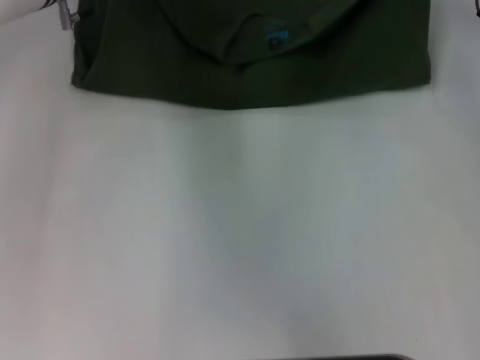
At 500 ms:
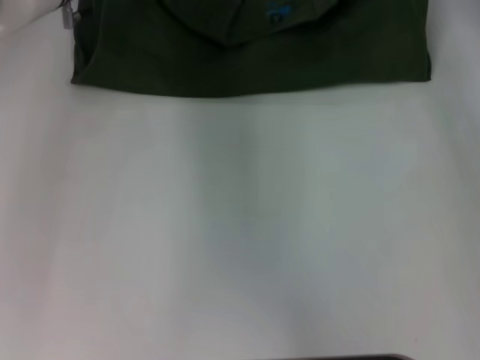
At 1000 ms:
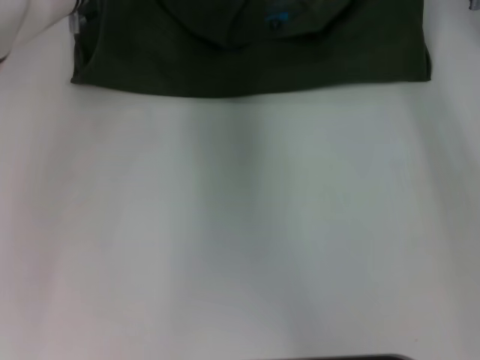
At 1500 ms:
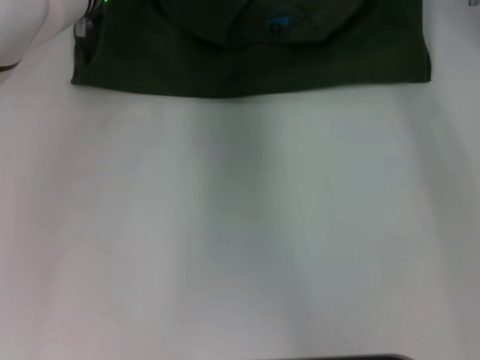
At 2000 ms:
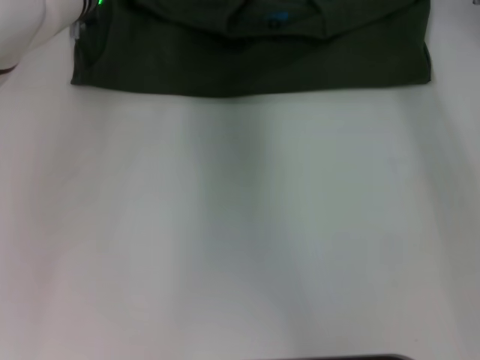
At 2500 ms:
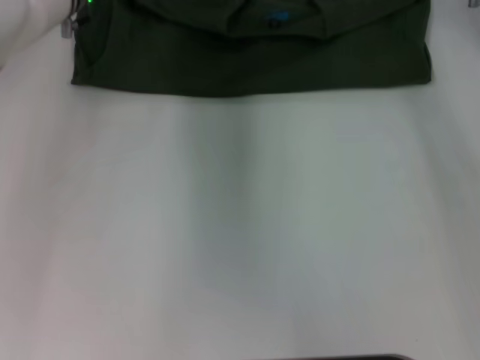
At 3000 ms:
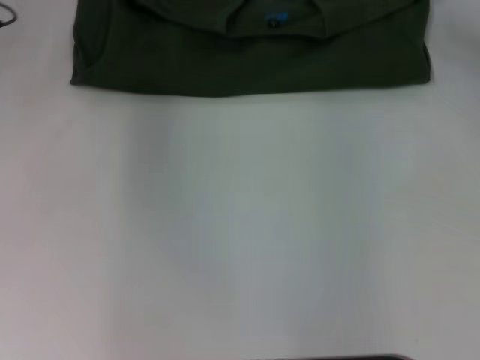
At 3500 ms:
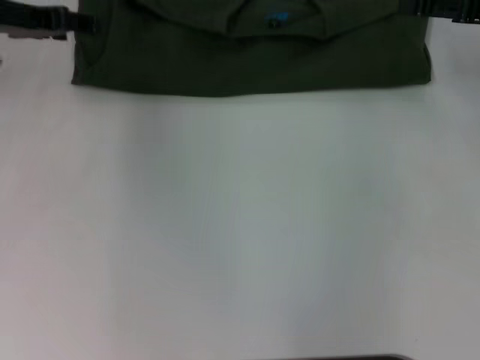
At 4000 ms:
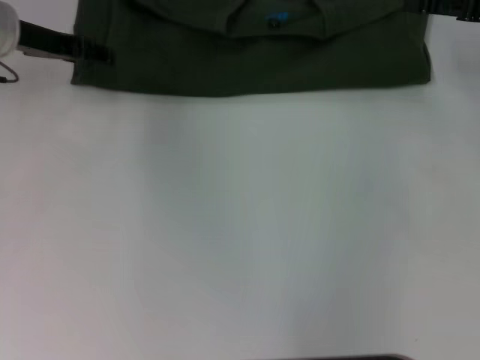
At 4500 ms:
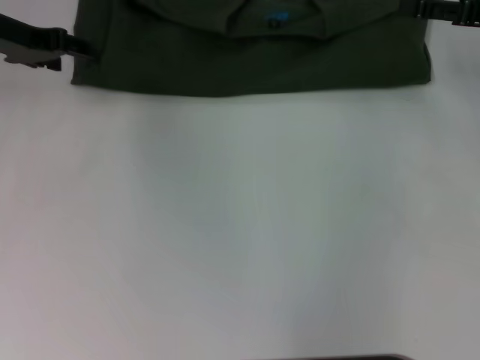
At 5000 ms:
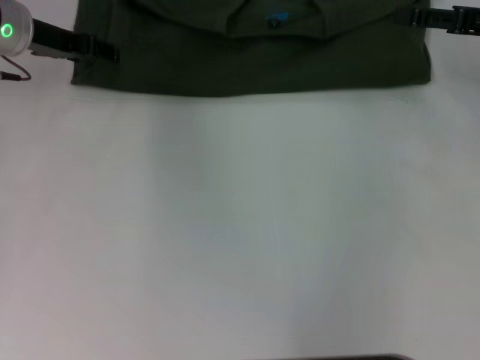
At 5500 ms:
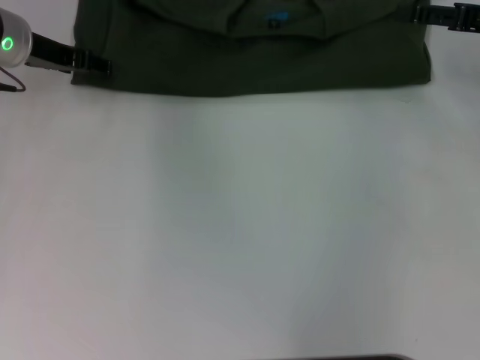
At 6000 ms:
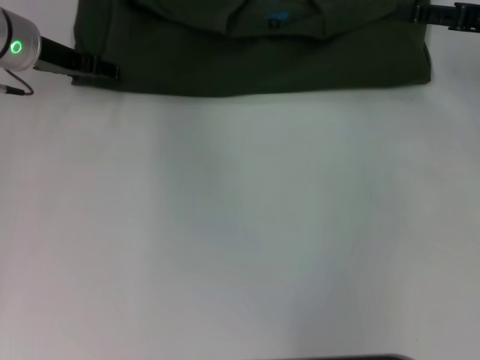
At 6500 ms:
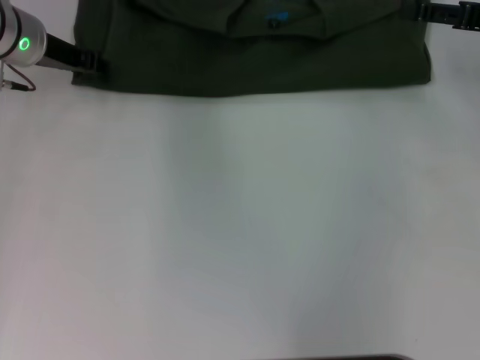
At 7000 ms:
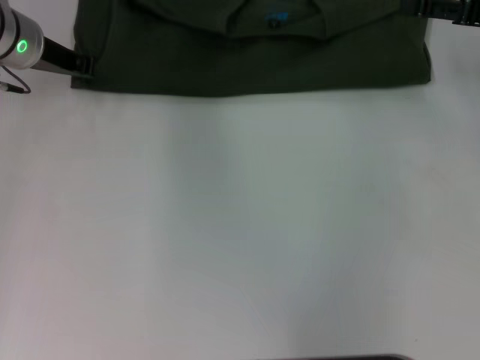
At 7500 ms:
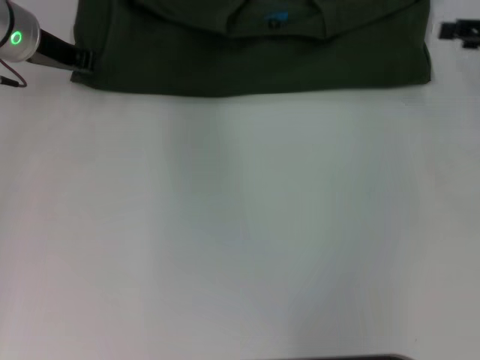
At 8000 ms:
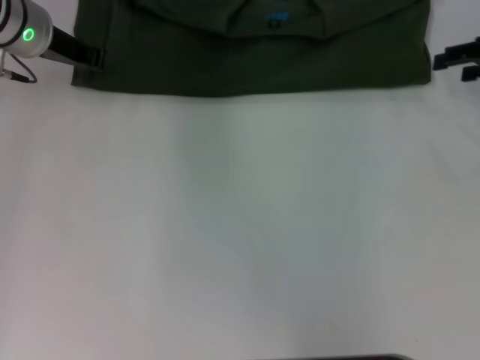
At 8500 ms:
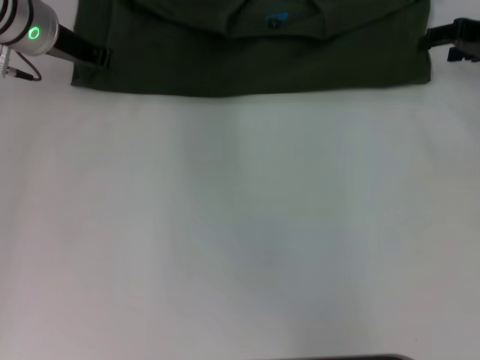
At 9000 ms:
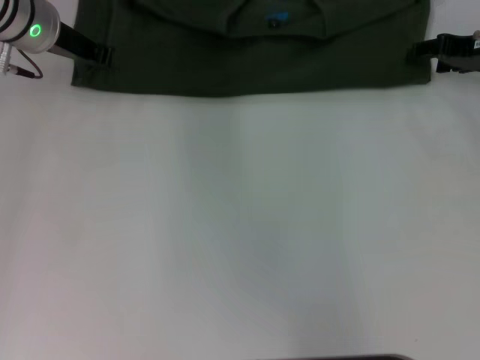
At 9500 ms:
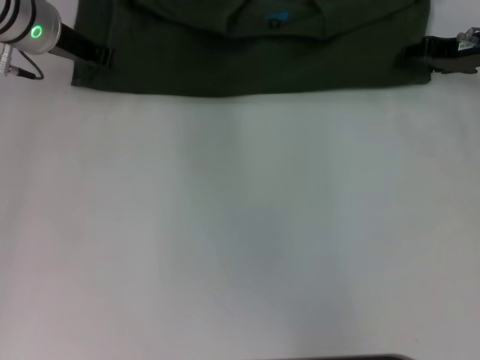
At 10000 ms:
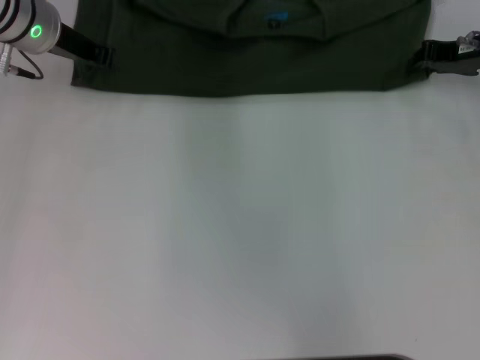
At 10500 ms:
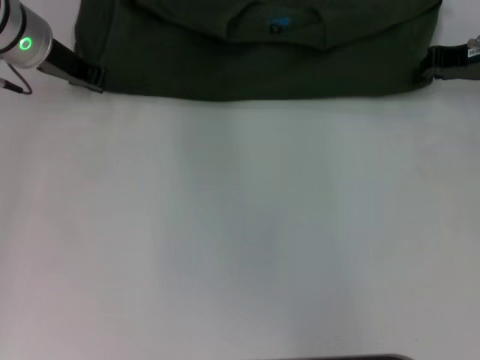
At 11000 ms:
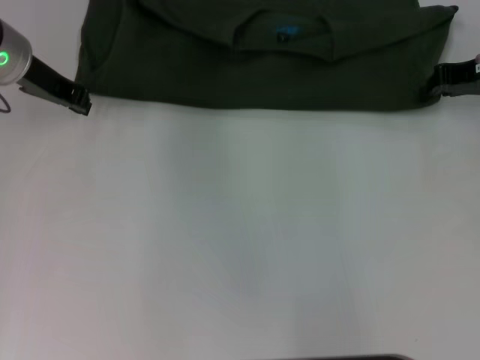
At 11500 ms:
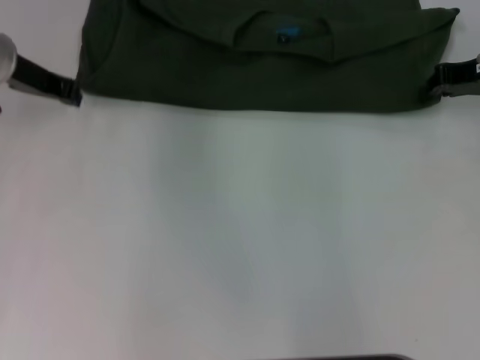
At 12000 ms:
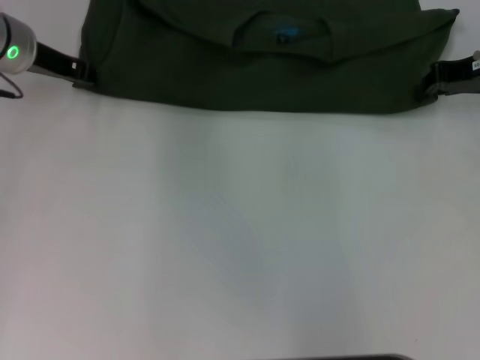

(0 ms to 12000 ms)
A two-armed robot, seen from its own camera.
0 ms - 2000 ms: The right gripper travels to the left by some 5 cm, and opens its fingers, while the left gripper opens up.
2000 ms - 4000 ms: The left gripper shifts some 10 cm to the left, while the right gripper moves backward and to the right, approximately 15 cm.
4000 ms - 6000 ms: There are only small adjustments of the grippers.
6000 ms - 8000 ms: The left gripper closes its fingers.
8000 ms - 10000 ms: The right gripper ends up roughly 5 cm from where it was, and closes its fingers.
10000 ms - 12000 ms: The grippers move only a little.

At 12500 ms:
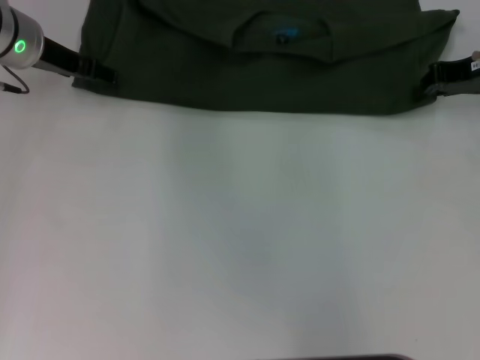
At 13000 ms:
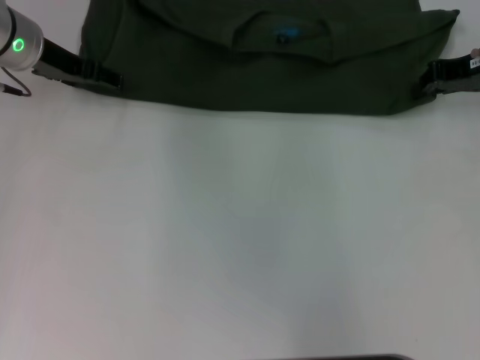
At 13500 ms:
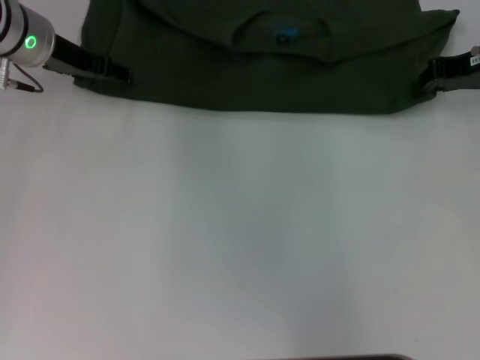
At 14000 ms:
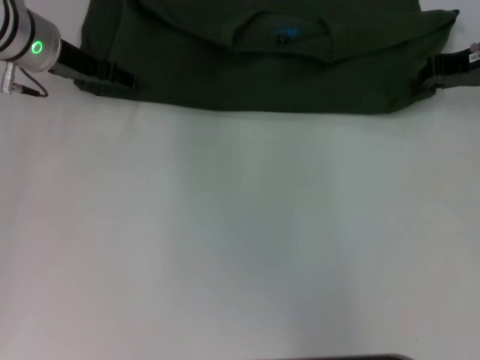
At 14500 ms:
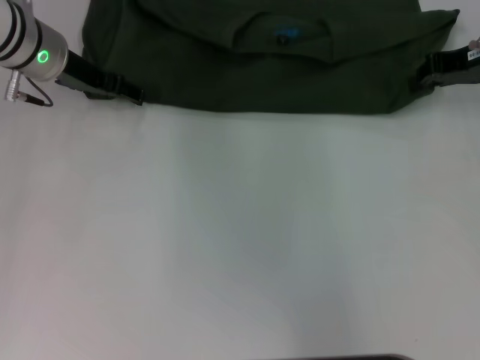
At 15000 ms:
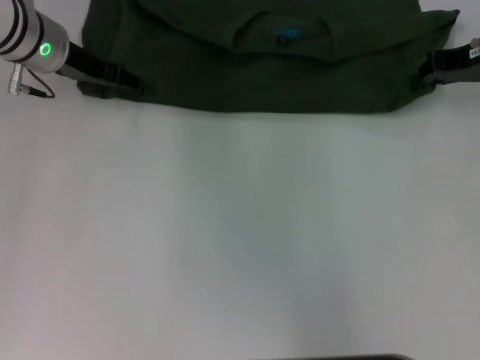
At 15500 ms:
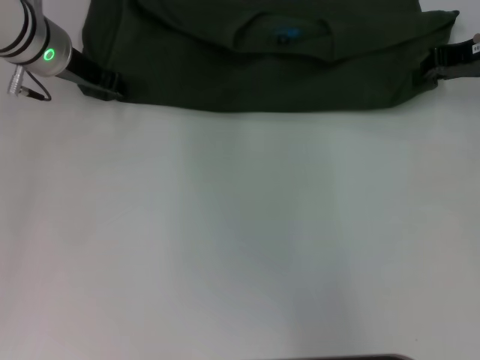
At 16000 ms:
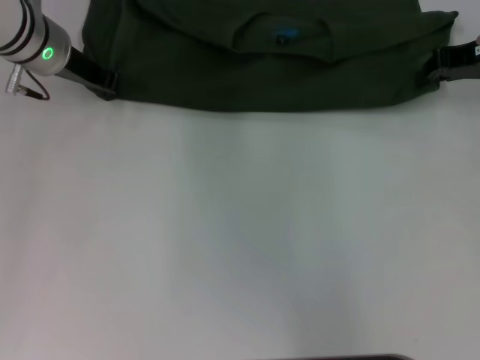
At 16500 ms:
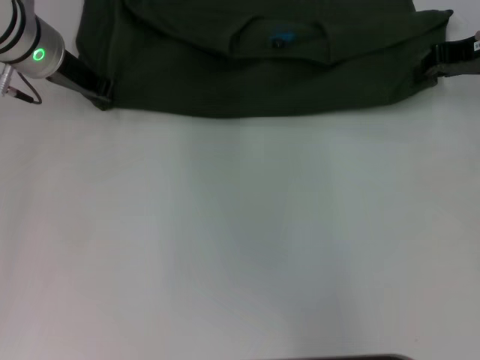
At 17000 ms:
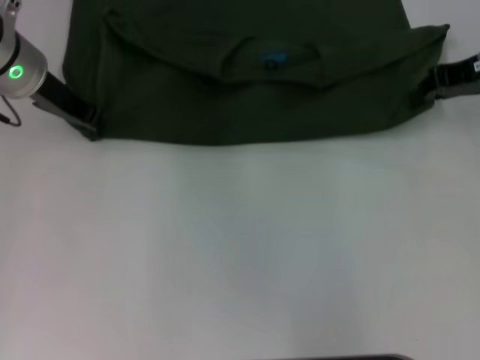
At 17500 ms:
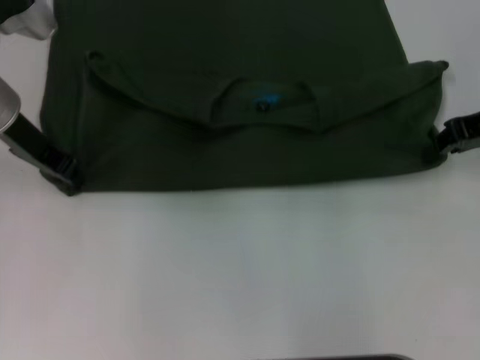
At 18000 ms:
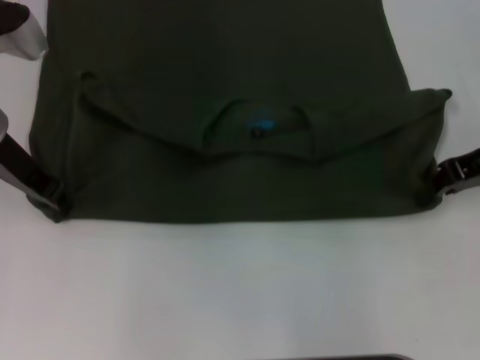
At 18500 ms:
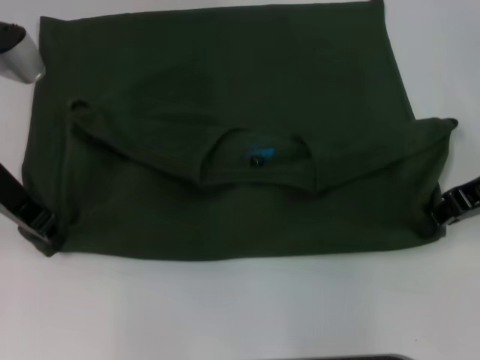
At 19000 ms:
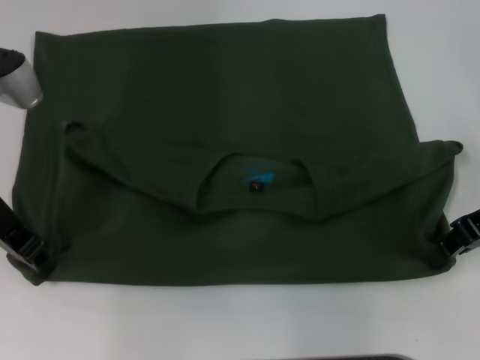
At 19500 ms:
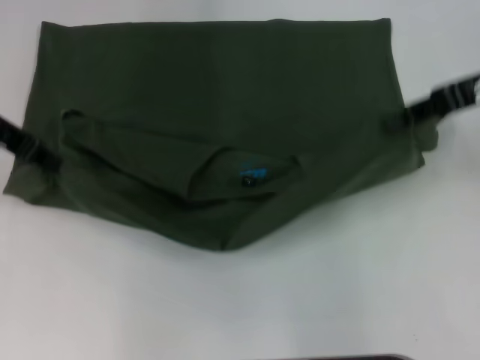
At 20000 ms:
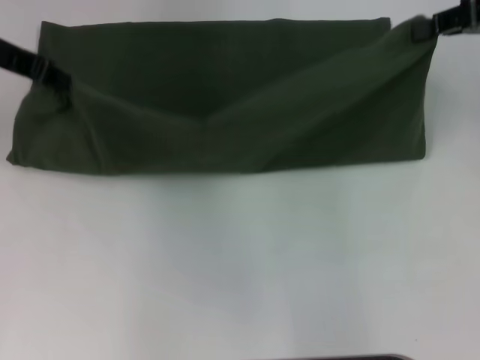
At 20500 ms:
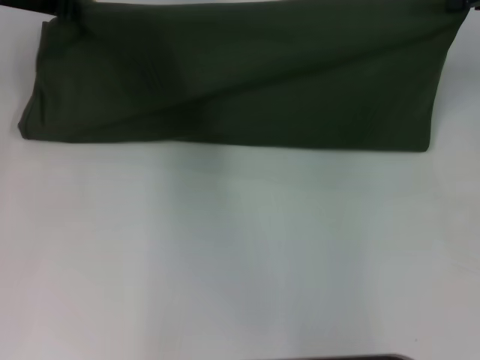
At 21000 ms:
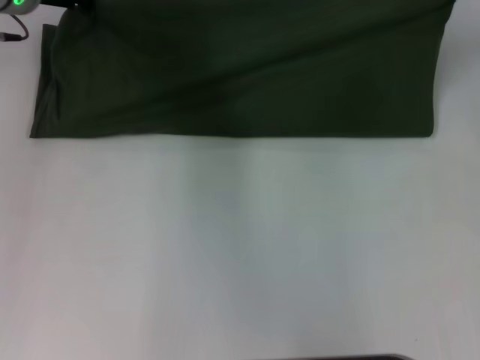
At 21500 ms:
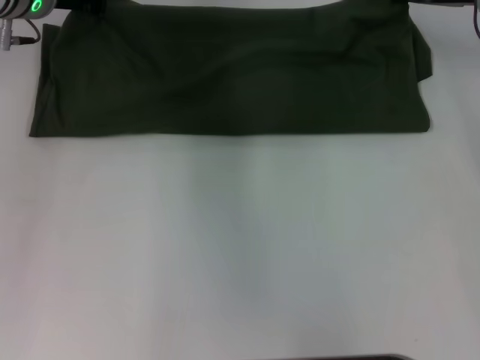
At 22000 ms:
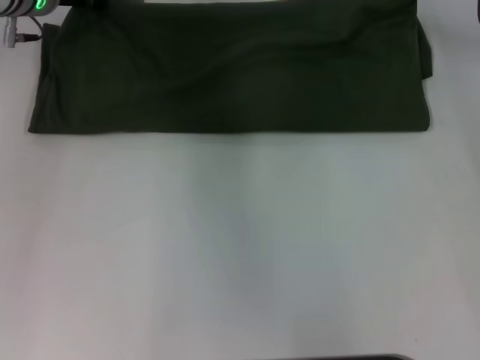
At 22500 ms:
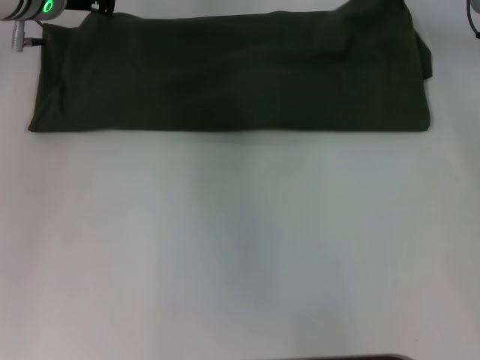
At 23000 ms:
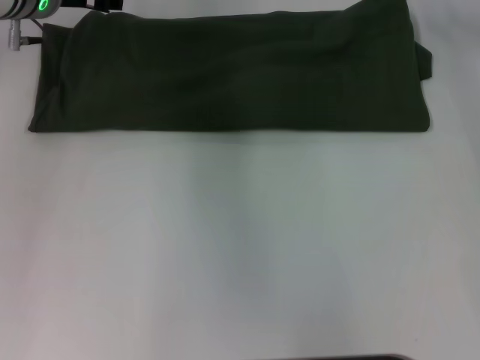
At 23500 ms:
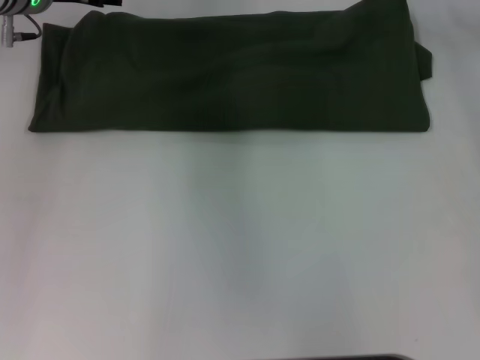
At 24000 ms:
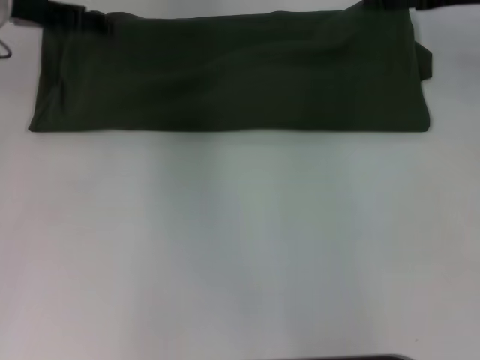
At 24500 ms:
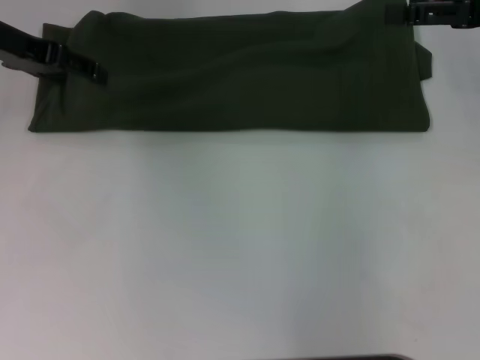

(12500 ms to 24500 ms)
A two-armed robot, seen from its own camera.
Step, 12500 ms - 18500 ms: Pull the clothes with your left hand.
Step, 12500 ms - 18500 ms: Pull the clothes with your right hand.
Step, 19000 ms - 22500 ms: Fold the clothes with your left hand.
Step, 19000 ms - 22500 ms: Fold the clothes with your right hand.
12500 ms - 14500 ms: The grippers move only a little.
14500 ms - 16500 ms: The left gripper closes up.
16500 ms - 18500 ms: The two grippers go some 10 cm backward.
18500 ms - 20500 ms: The left gripper goes approximately 10 cm forward and upward. The right gripper travels upward, forward and to the right by roughly 10 cm.
20500 ms - 22500 ms: The left gripper heads to the right, covering approximately 5 cm. Meanwhile the right gripper is displaced to the left, forward and downward by roughly 10 cm.
22500 ms - 24500 ms: The right gripper is displaced backward by approximately 10 cm, and opens up. The left gripper moves to the left, about 10 cm, and opens.

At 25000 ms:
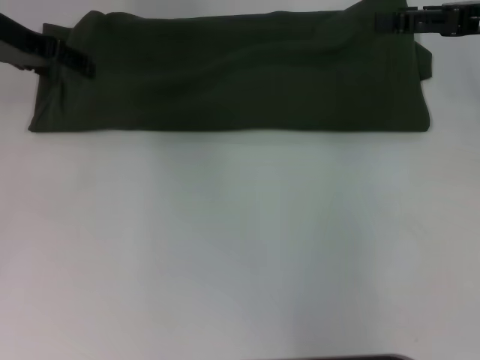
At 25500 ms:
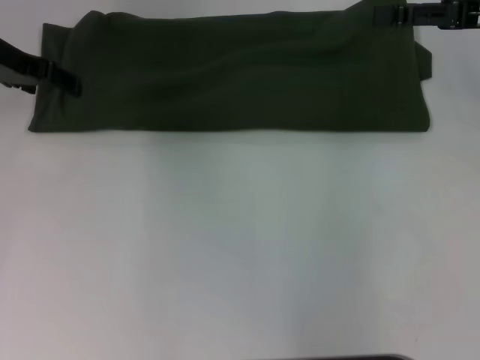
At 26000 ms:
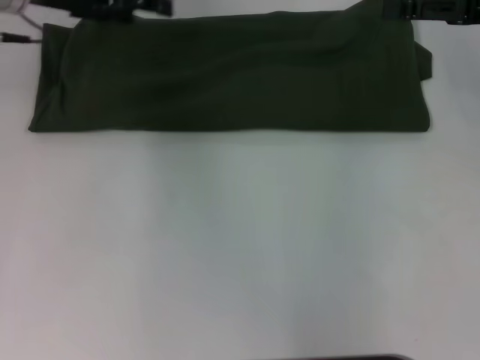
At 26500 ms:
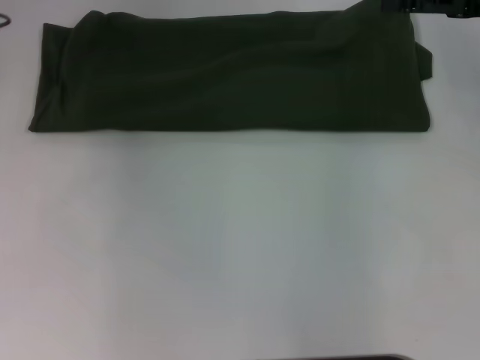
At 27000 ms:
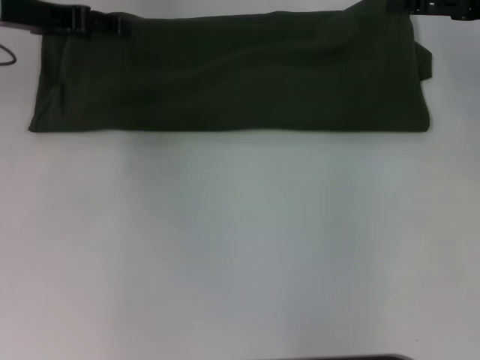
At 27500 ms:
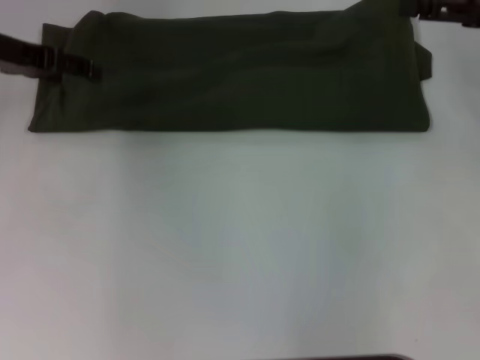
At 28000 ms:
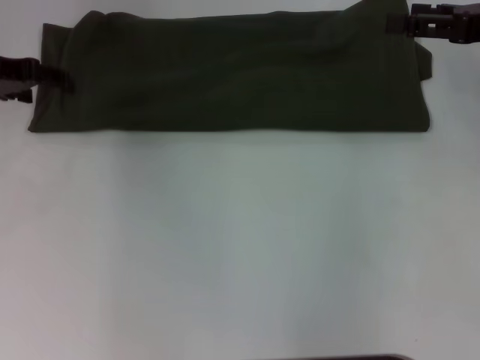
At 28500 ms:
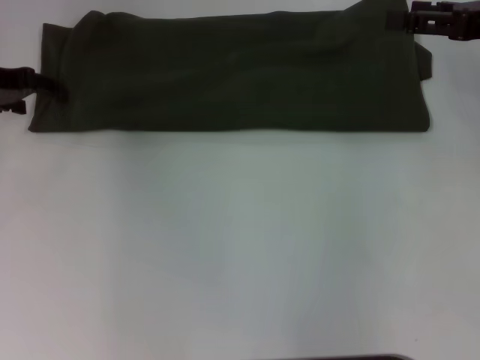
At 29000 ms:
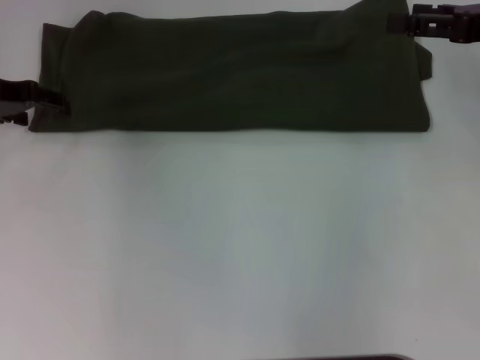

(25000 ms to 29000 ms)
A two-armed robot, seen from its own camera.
27000 ms - 29000 ms: The left gripper shifts by about 5 cm.
